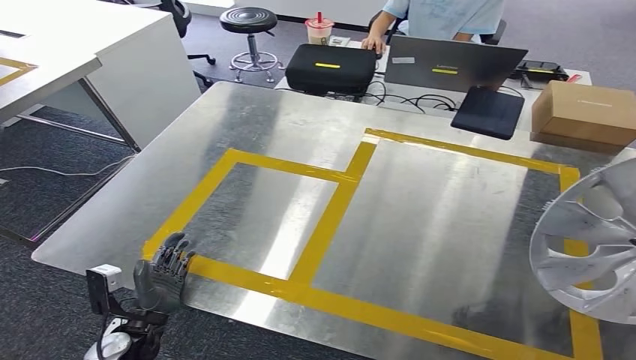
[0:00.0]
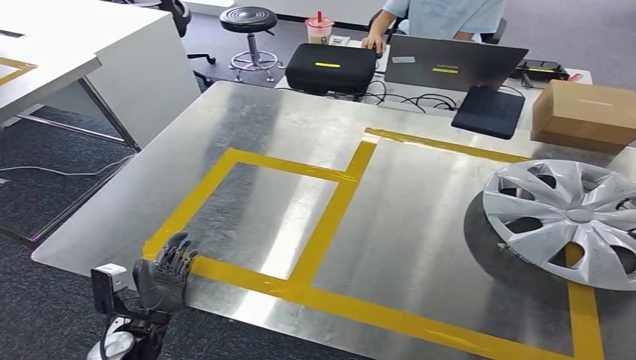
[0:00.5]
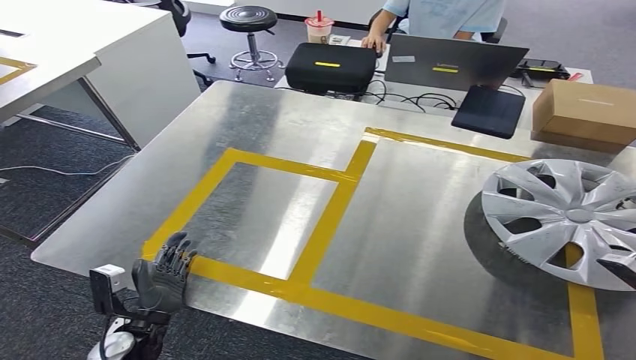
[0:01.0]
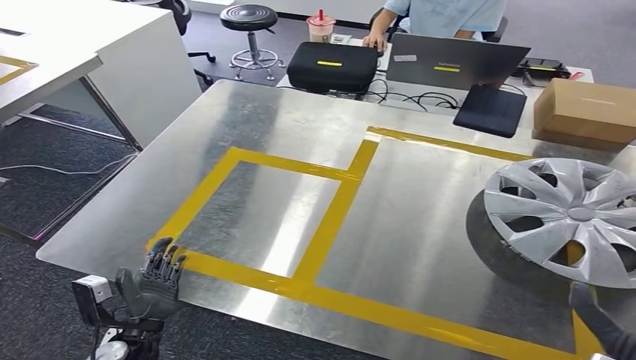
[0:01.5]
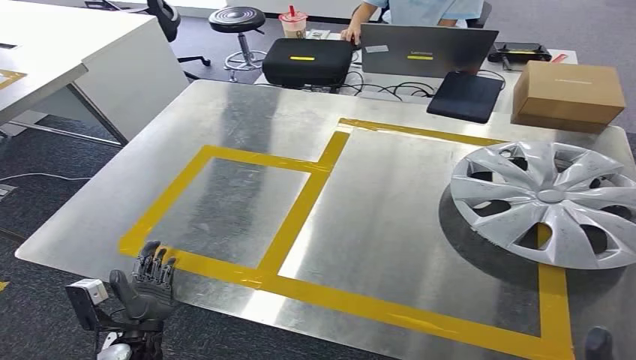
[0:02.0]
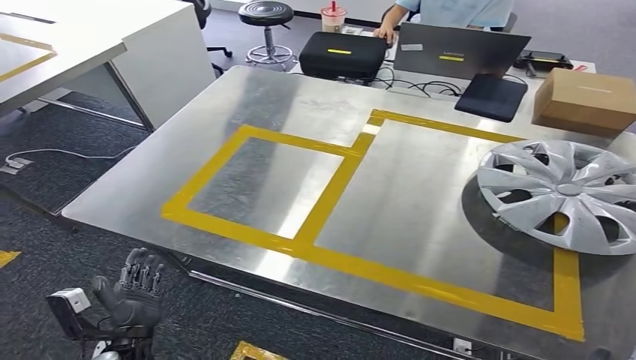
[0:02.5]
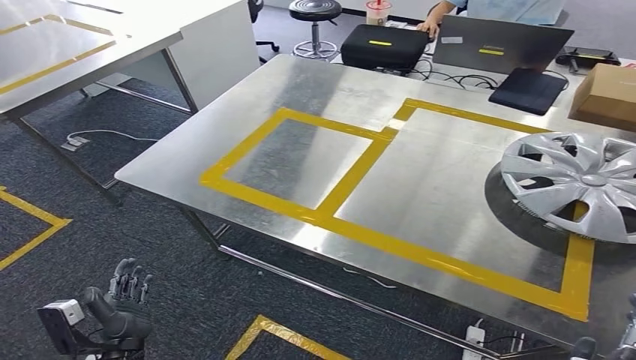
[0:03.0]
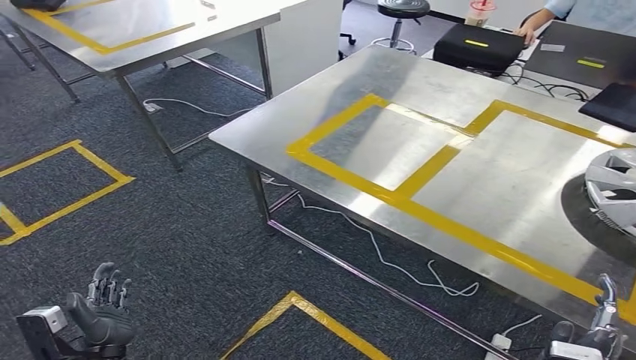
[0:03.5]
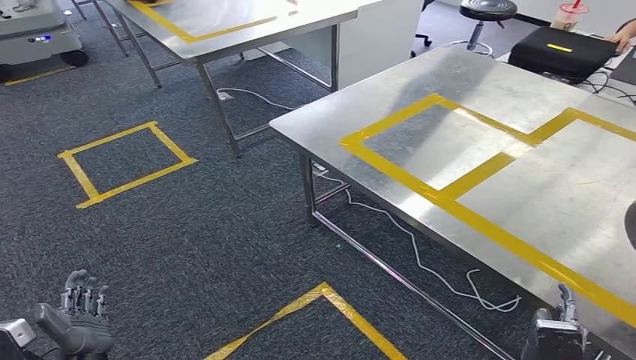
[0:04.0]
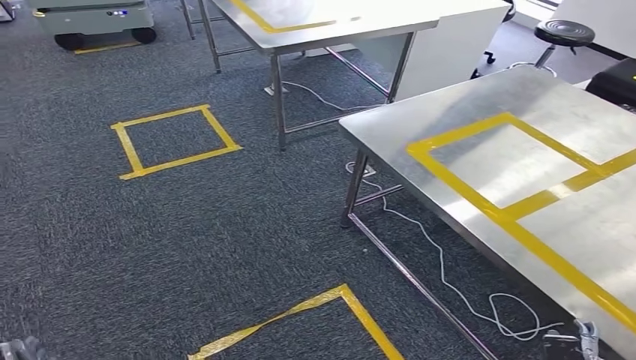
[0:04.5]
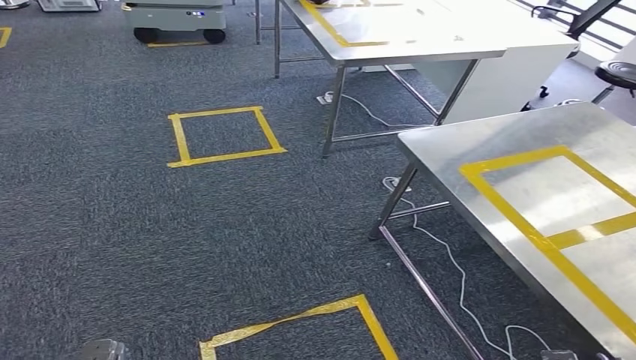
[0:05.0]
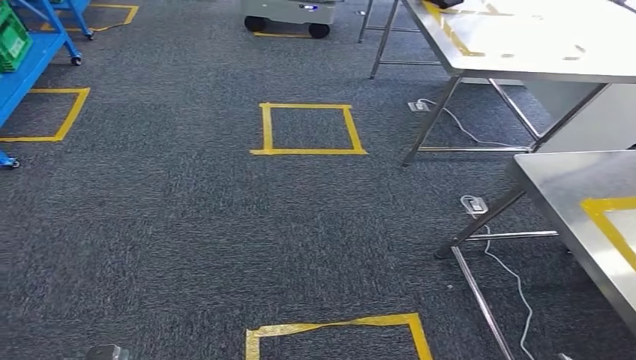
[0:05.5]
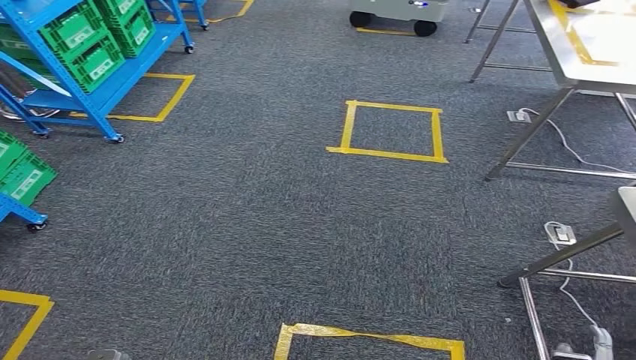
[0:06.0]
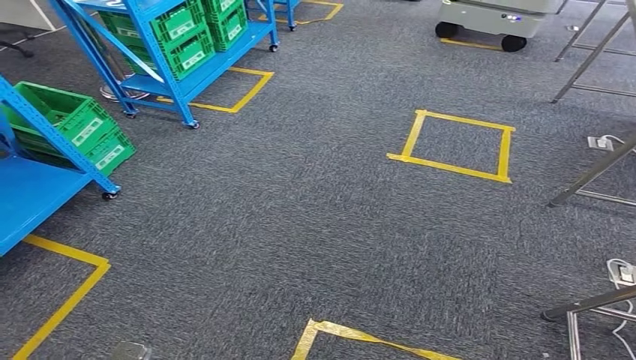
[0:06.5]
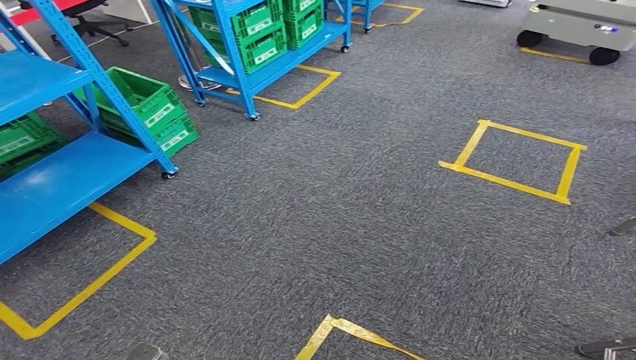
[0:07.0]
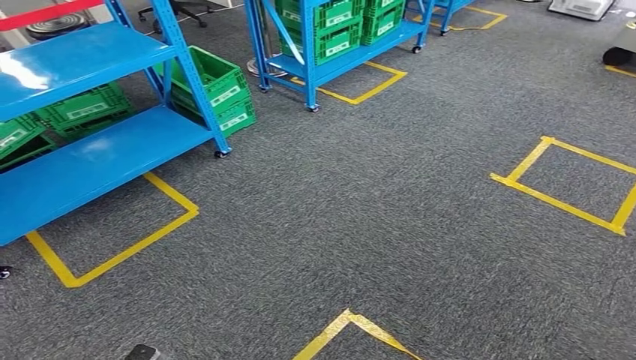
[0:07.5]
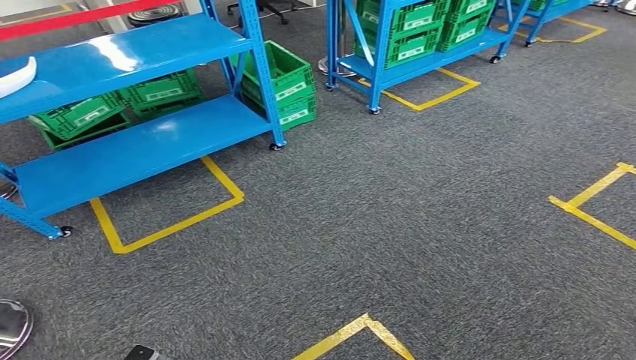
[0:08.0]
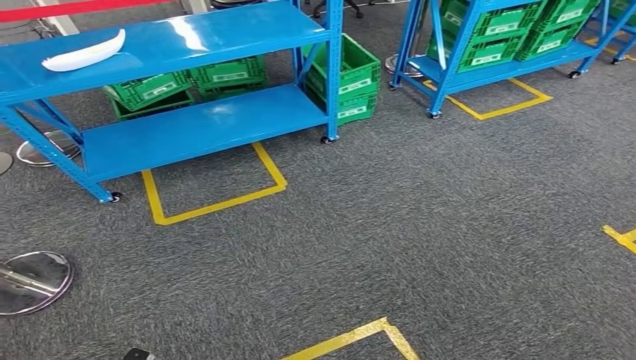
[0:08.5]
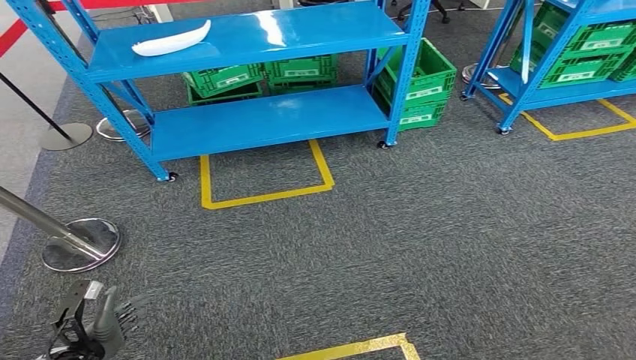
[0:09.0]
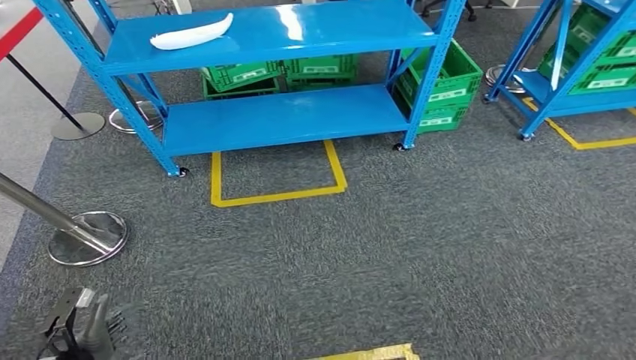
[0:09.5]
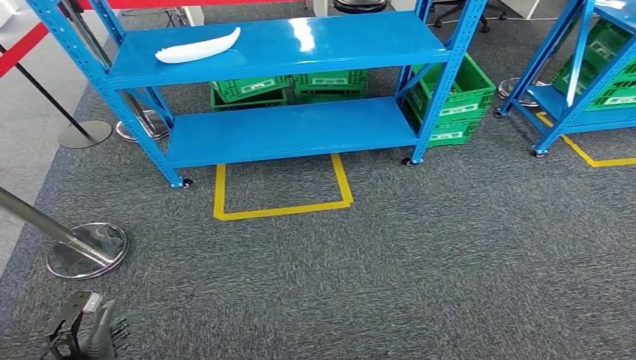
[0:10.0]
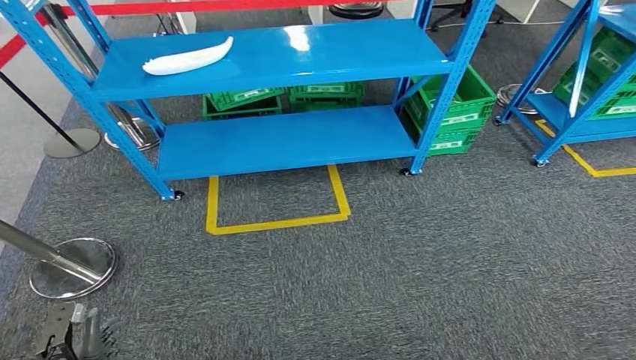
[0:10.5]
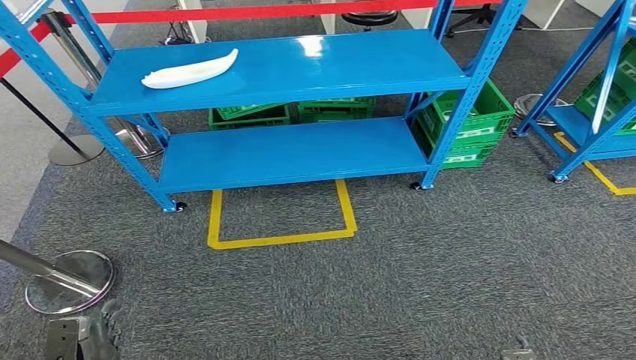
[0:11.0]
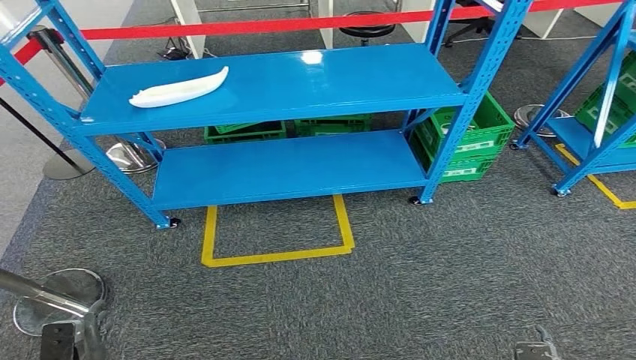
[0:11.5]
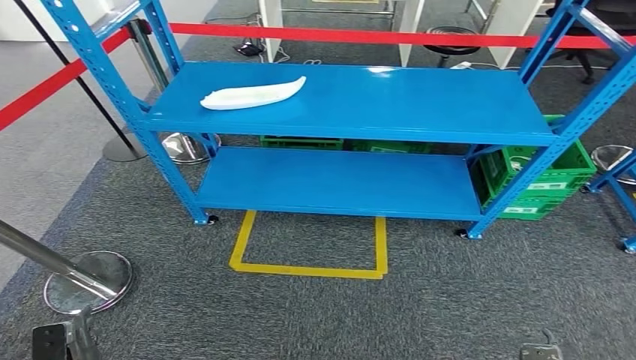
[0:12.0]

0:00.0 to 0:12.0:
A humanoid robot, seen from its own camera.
Step, 0:00.0 to 0:03.5: Insert the small component into the corresponding slot on the workbench.

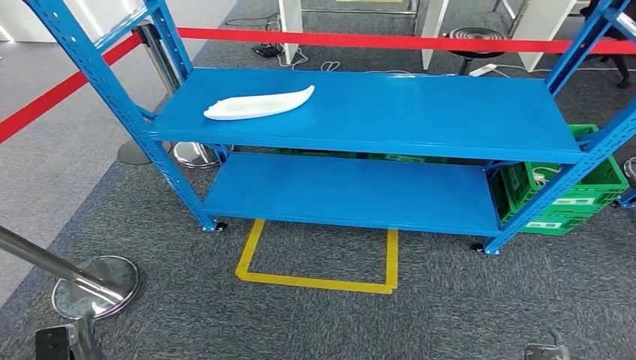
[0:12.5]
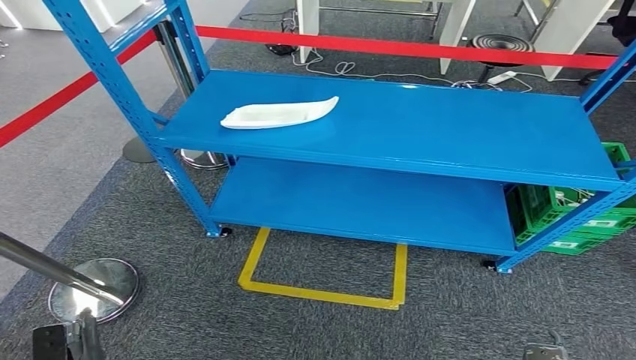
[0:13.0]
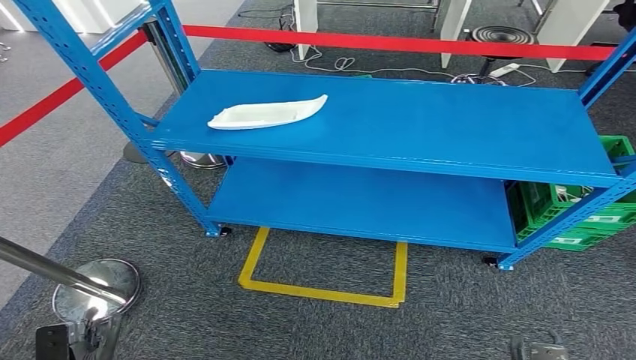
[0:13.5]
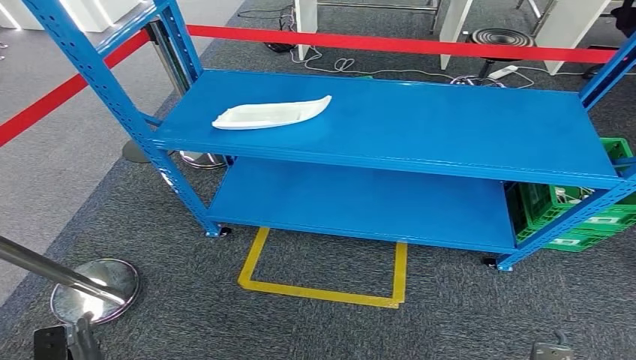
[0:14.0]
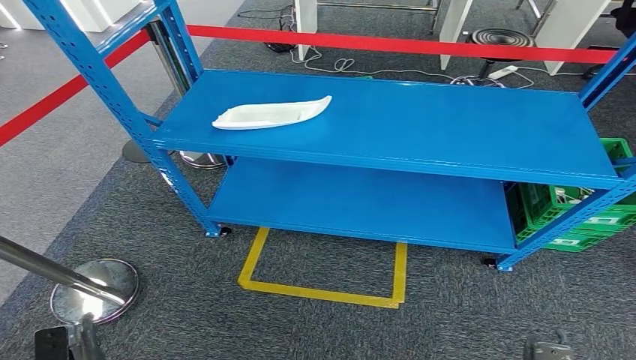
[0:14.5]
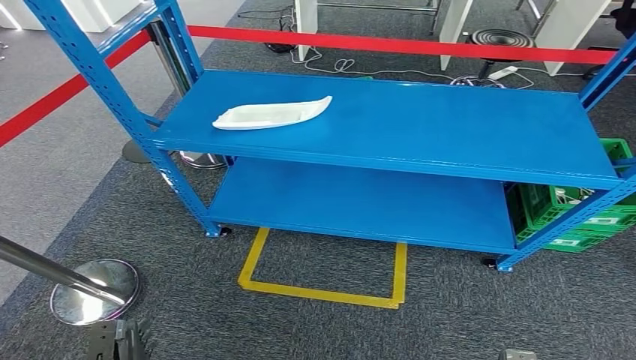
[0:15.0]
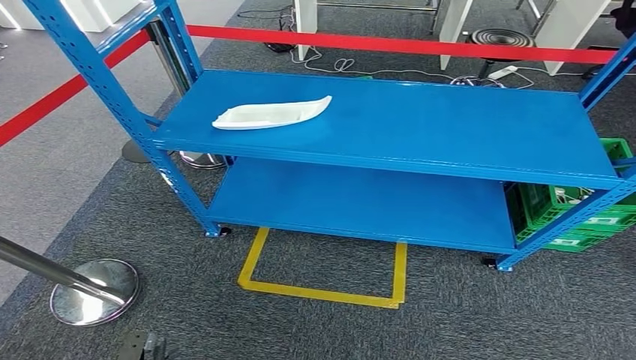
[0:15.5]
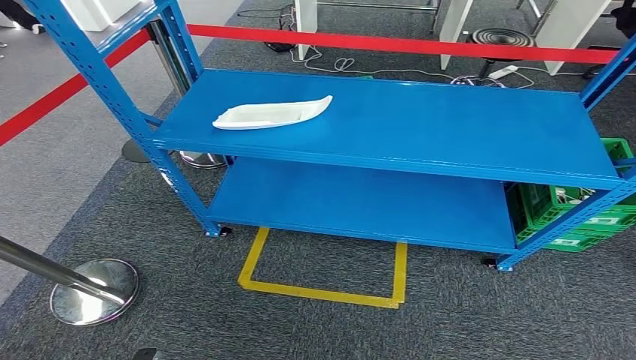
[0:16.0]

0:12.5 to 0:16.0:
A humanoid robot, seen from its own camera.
Step, 0:12.5 to 0:16.0: Move to the initial position at the workbench.
0:14.5 to 0:16.0: The left hand travels downward by roughly 10 cm.
